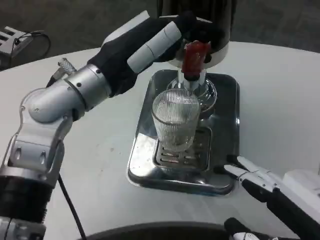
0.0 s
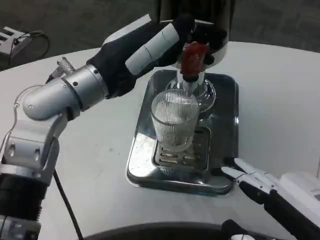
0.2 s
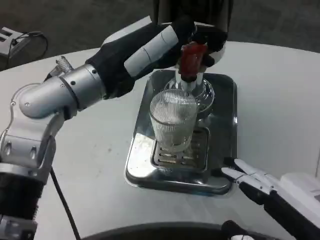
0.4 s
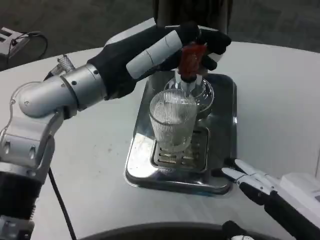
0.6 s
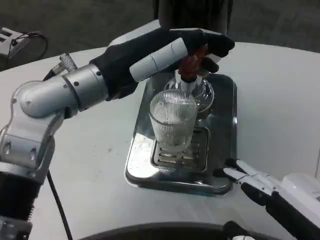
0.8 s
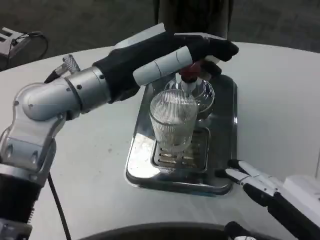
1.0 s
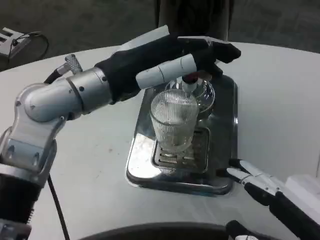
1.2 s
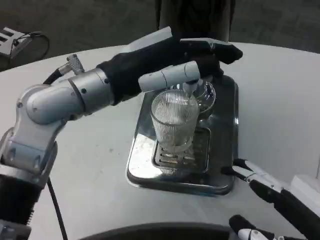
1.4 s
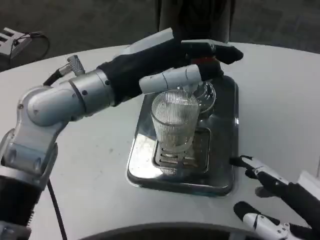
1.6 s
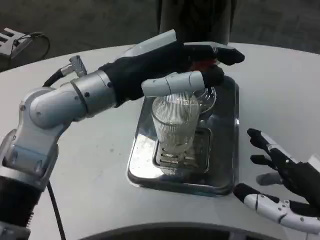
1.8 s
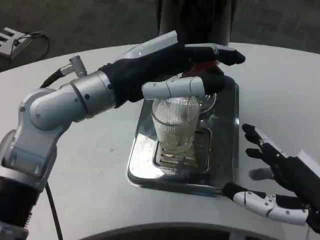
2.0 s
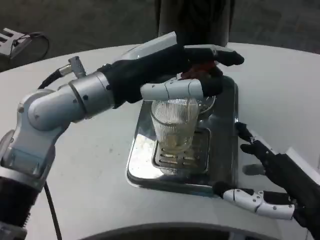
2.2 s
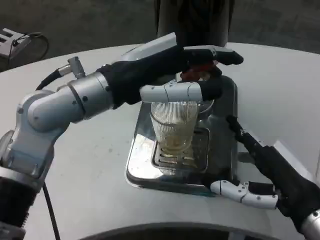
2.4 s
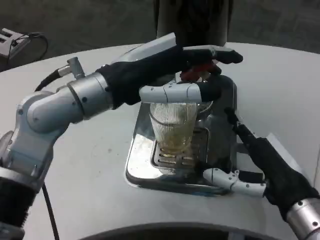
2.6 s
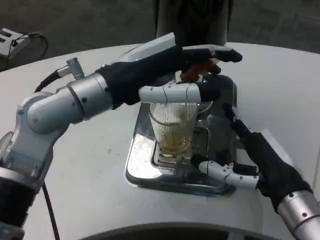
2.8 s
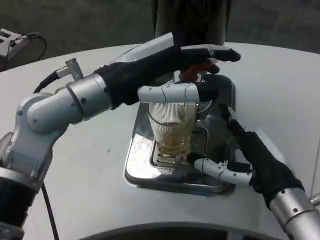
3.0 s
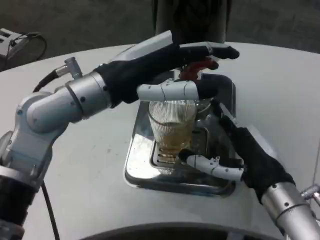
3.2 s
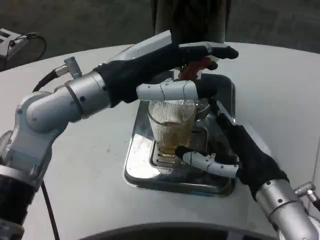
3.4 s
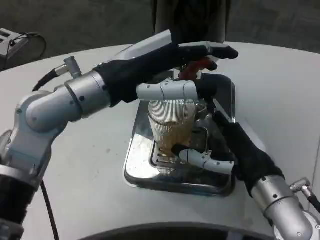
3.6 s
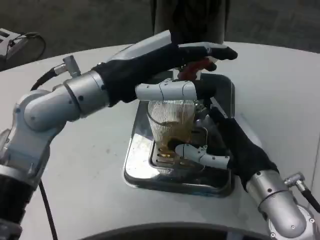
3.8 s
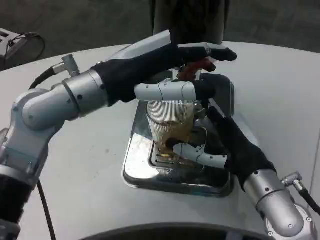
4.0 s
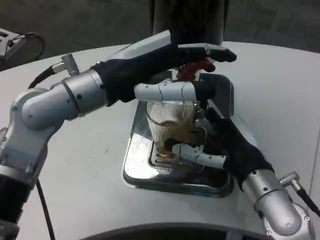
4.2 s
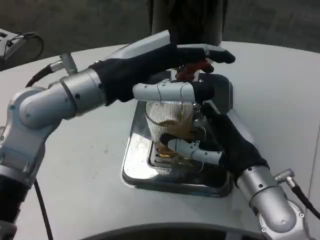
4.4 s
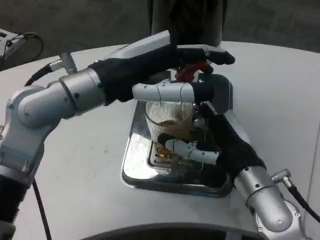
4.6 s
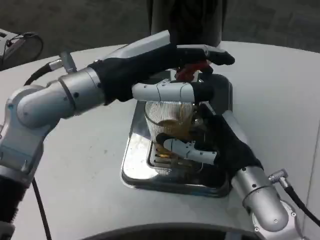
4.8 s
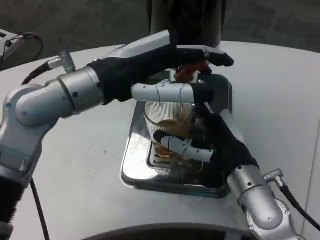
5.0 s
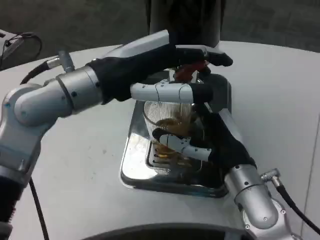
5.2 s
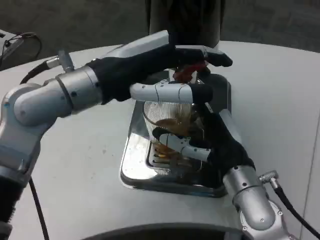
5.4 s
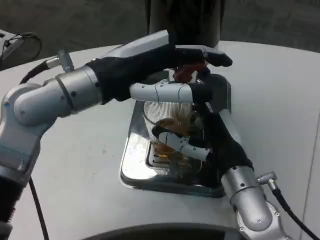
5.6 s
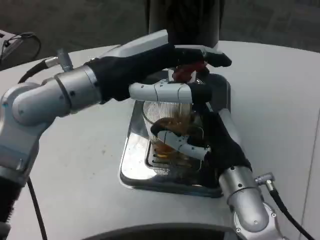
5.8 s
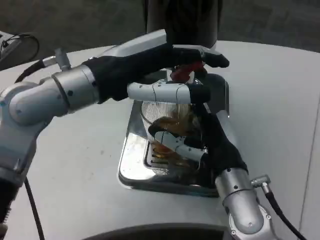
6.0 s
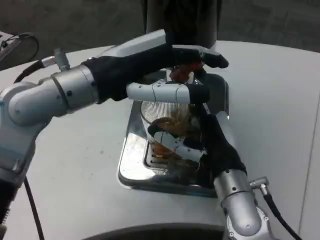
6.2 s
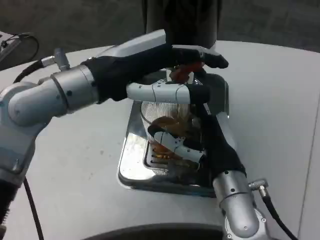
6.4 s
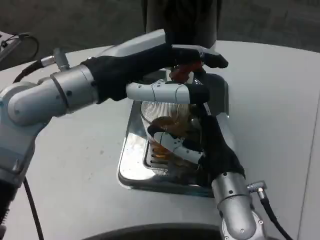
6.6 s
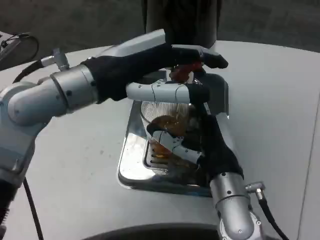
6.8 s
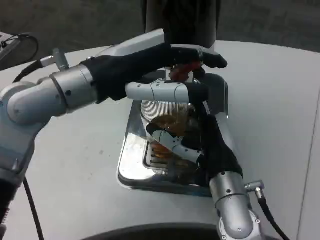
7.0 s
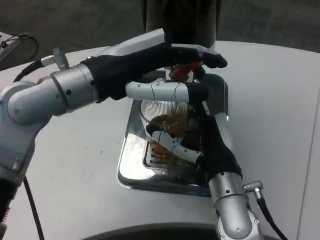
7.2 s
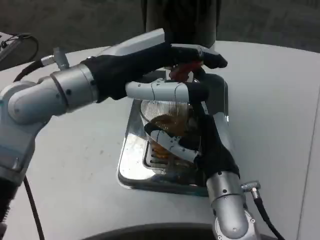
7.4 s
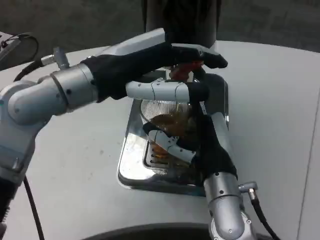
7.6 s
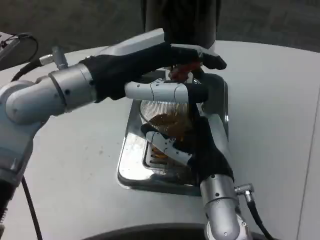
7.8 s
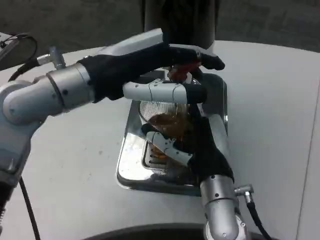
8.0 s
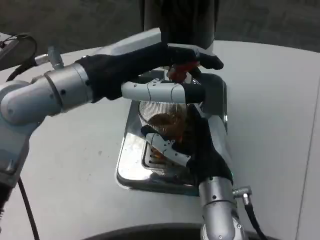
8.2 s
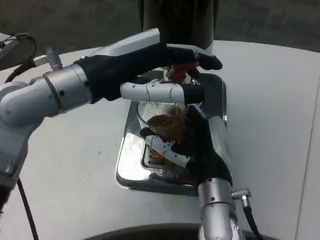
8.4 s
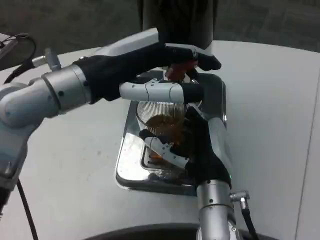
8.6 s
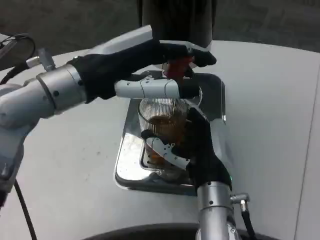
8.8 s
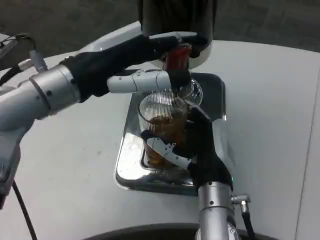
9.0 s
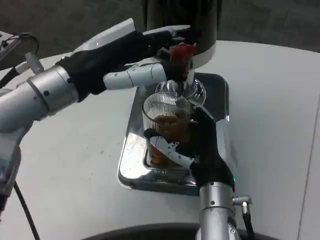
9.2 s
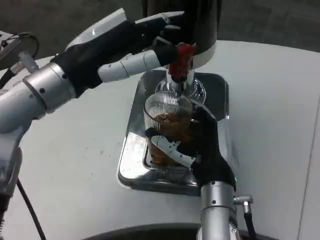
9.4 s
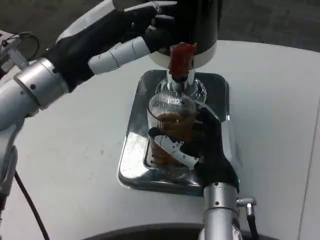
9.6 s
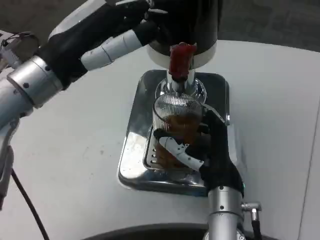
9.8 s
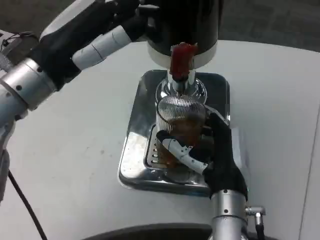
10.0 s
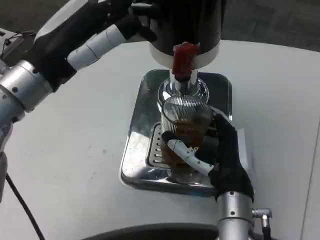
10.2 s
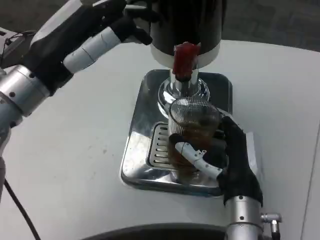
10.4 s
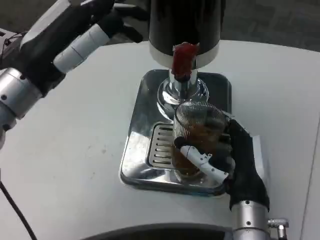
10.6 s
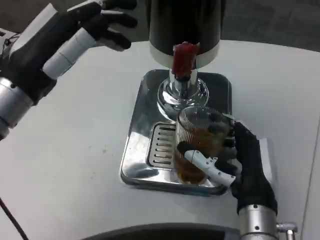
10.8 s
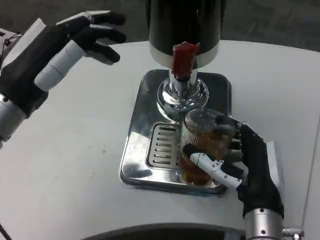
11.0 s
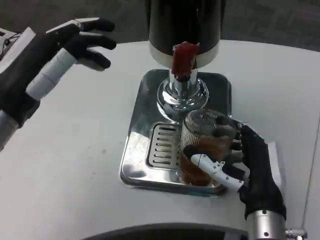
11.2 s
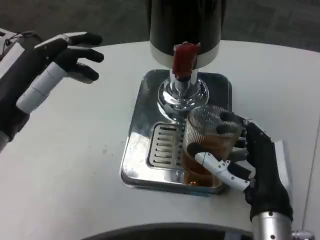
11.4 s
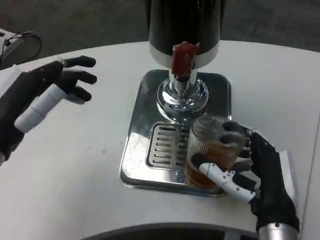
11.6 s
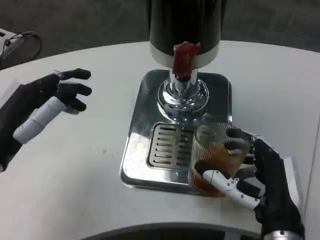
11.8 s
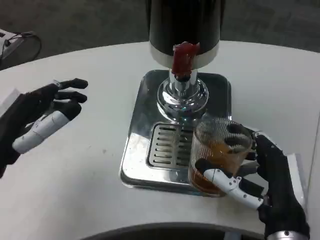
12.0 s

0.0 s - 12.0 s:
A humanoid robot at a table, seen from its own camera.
Task of the whole recording: Grasp the cup under the faucet to collect the drink, then remove the cup.
1.6 s - 3.0 s: The right hand heads forward and to the left, covering roughly 10 cm.
6.0 s - 7.6 s: The hands stay close to where they were, moving slightly.
10.4 s - 12.0 s: The left hand moves downward and backward, some 10 cm; the right hand travels backward by approximately 5 cm.

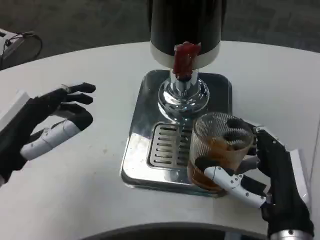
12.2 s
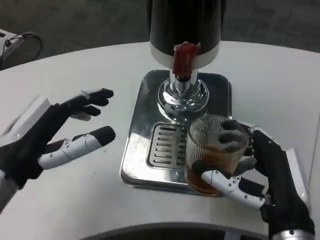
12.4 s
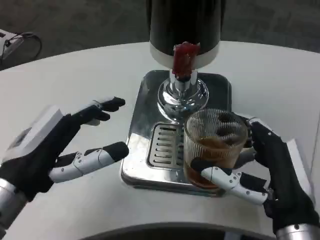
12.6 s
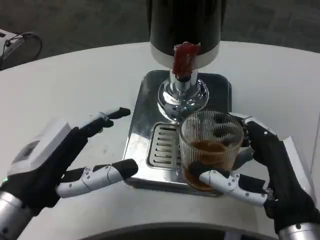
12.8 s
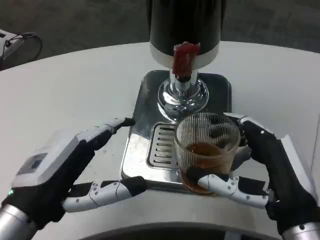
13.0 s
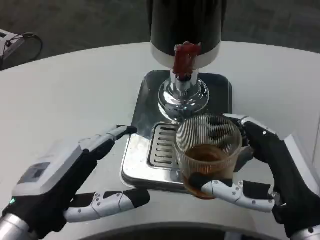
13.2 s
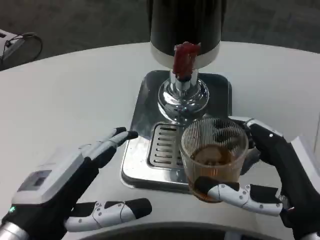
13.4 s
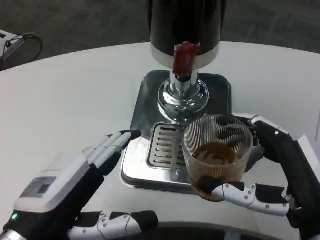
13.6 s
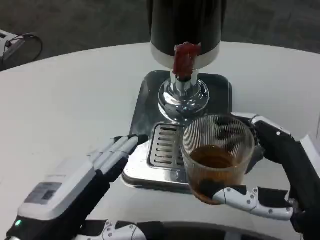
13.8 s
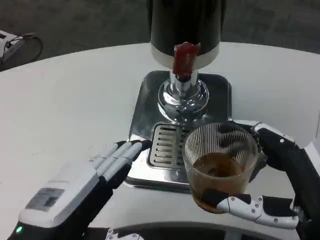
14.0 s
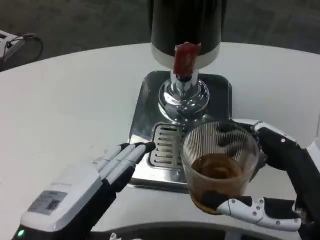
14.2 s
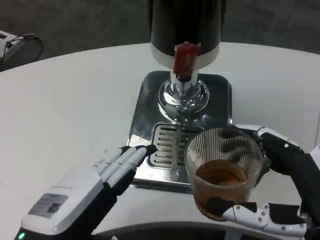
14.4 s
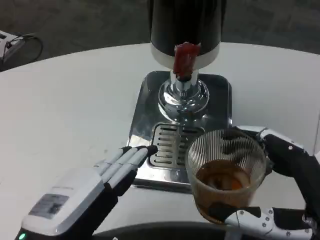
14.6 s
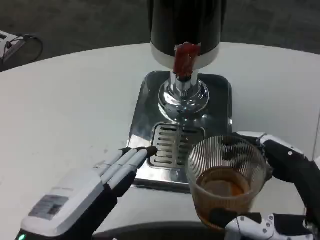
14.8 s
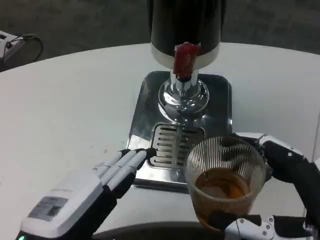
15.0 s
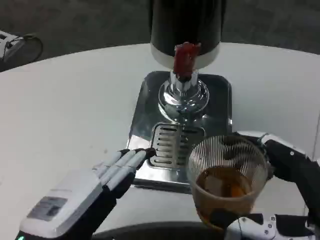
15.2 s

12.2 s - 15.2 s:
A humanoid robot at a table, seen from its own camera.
Task of the whole recording: Grasp the cup under the faucet to collect the drink, then remove the cup.
12.2 s - 13.8 s: The left hand shifts roughly 10 cm backward and to the right. Meanwhile the right hand ends up about 5 cm from where it was.

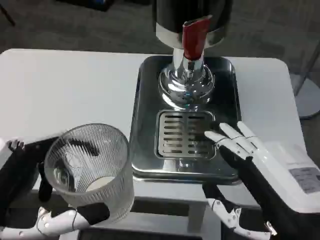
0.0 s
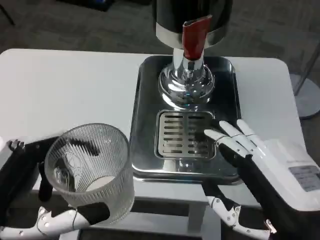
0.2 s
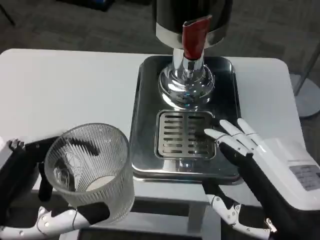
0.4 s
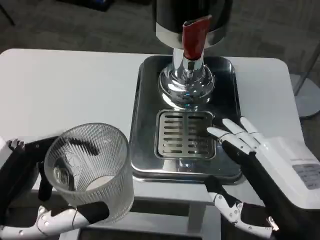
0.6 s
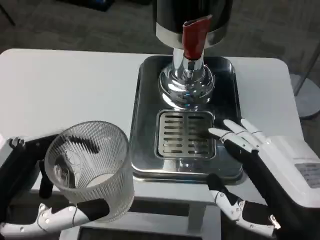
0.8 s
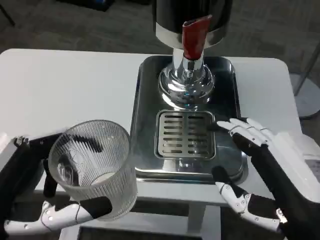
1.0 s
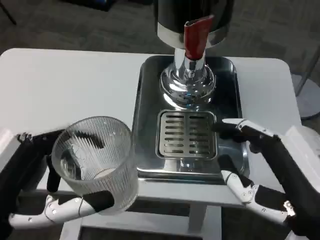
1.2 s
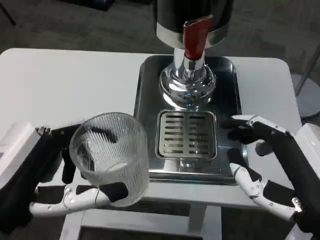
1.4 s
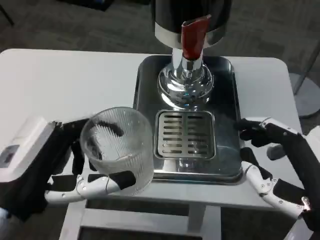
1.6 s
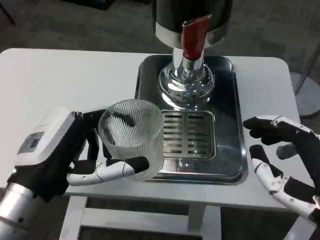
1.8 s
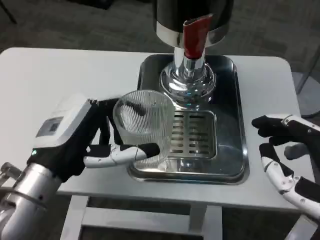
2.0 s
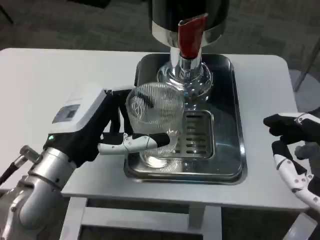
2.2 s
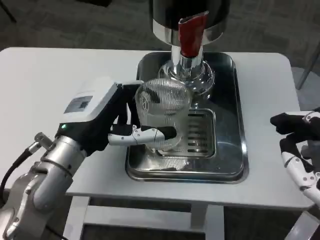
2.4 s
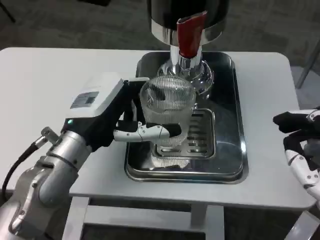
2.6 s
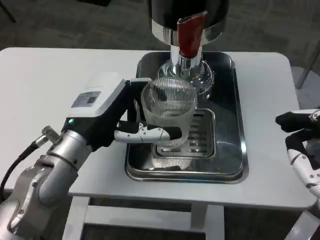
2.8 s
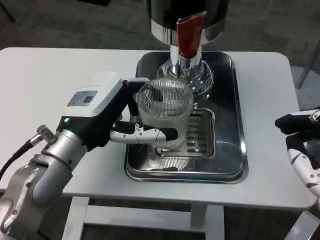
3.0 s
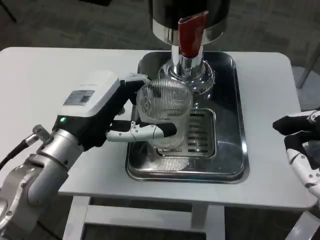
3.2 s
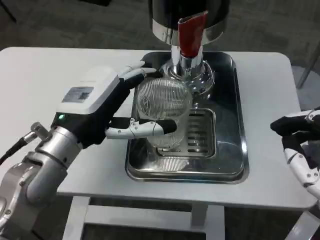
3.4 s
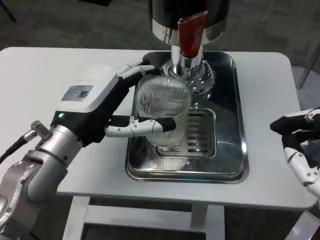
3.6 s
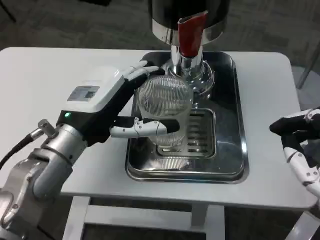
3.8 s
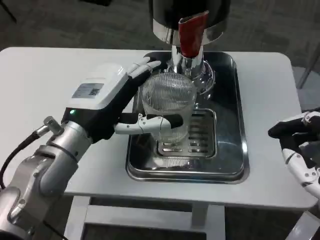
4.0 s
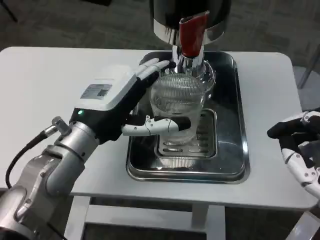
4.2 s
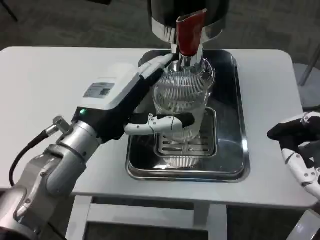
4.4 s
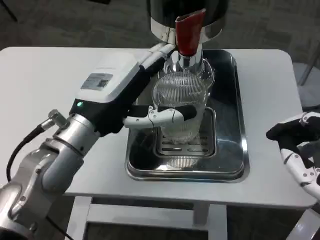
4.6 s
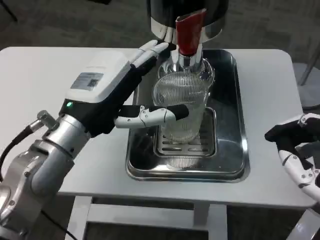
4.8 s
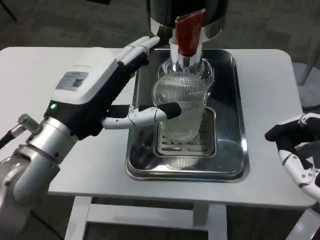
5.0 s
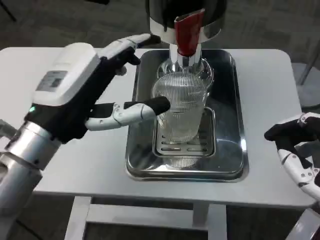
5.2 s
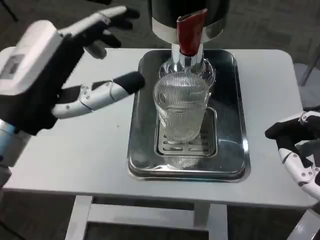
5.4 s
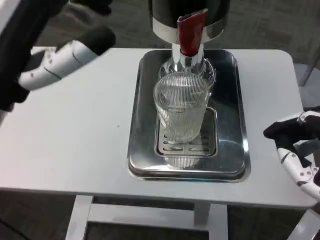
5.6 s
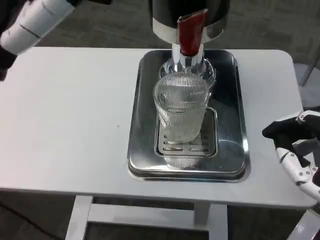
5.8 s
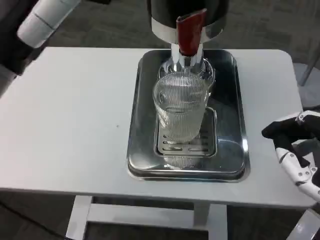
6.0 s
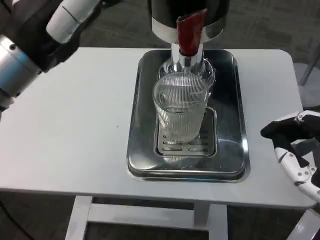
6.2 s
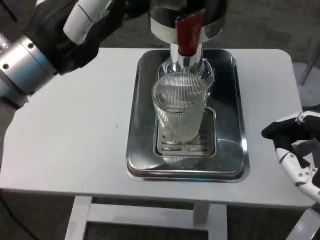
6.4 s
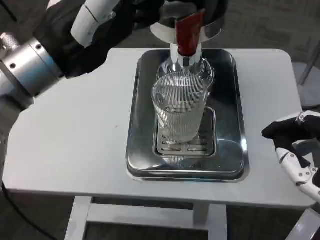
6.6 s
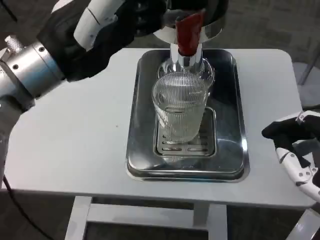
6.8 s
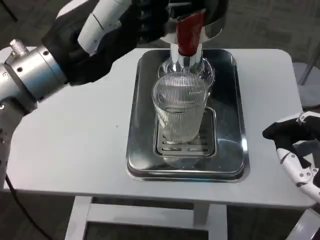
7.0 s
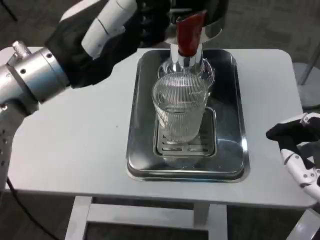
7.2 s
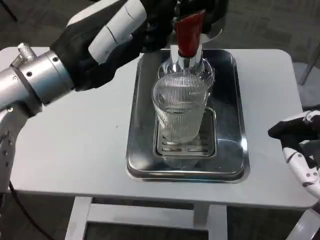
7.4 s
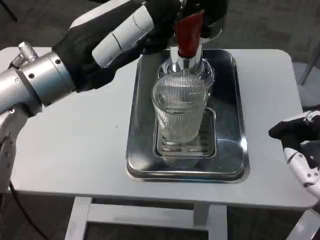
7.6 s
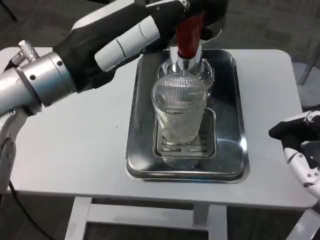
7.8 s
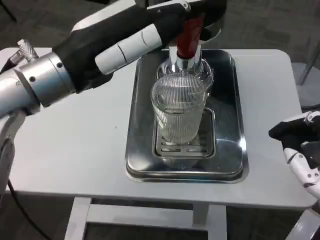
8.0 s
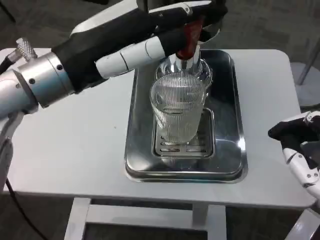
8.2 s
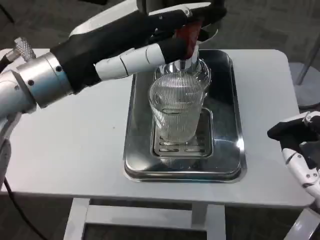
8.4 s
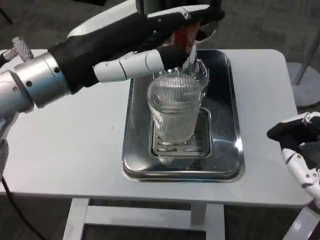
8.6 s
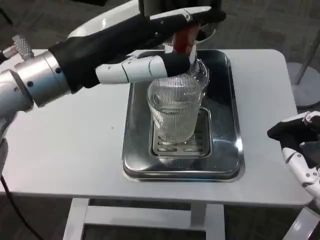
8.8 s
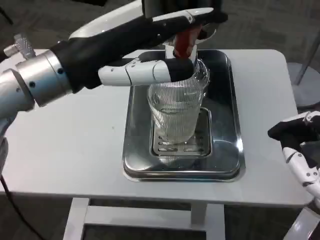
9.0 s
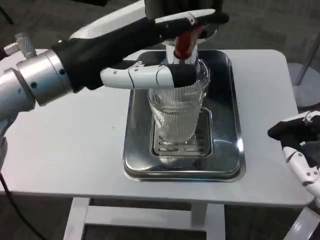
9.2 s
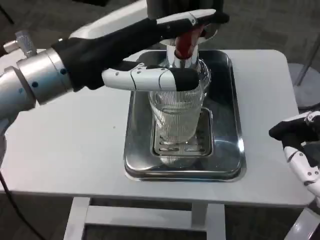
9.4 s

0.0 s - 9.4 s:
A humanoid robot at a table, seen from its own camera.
Task of the whole recording: Grasp the cup under the faucet to collect the drink, then remove the cup.
0.0 s - 1.6 s: The left hand heads forward, covering roughly 5 cm.
1.6 s - 3.2 s: The left hand travels forward by approximately 10 cm.
4.8 s - 6.2 s: The left hand shifts some 10 cm upward.
